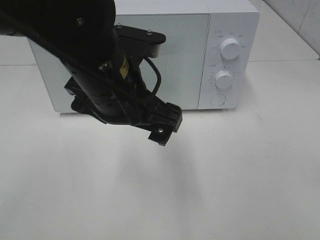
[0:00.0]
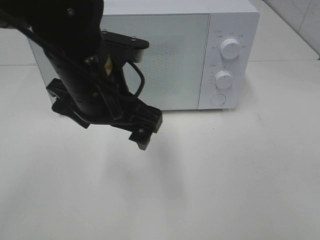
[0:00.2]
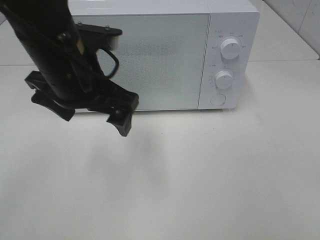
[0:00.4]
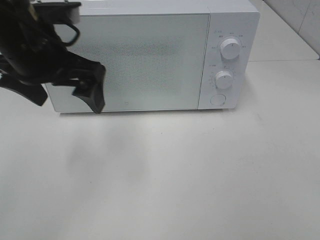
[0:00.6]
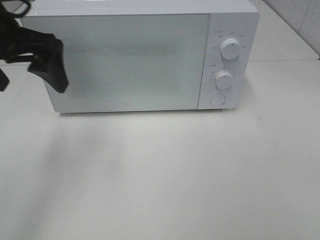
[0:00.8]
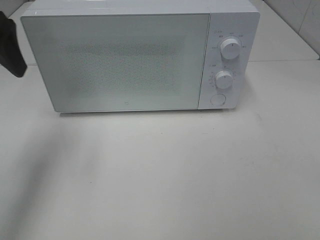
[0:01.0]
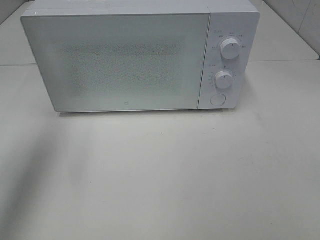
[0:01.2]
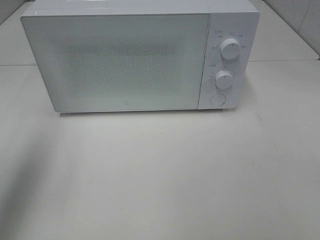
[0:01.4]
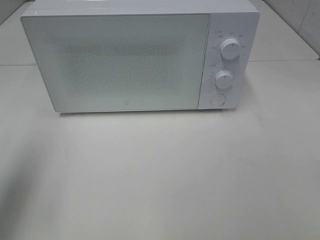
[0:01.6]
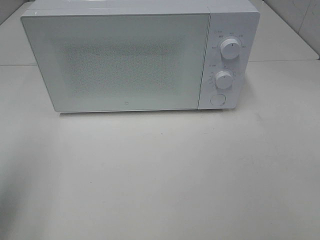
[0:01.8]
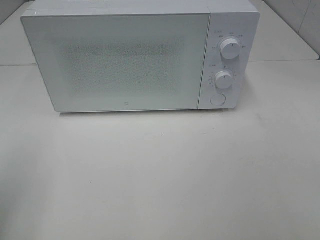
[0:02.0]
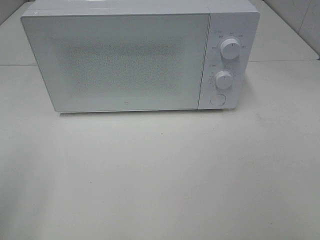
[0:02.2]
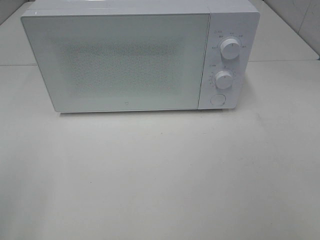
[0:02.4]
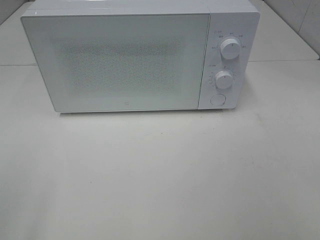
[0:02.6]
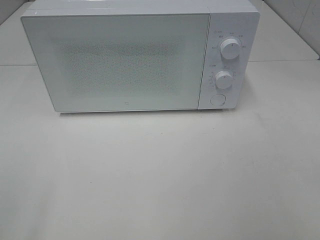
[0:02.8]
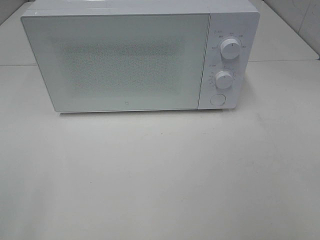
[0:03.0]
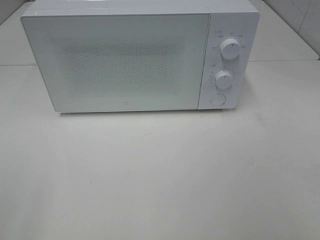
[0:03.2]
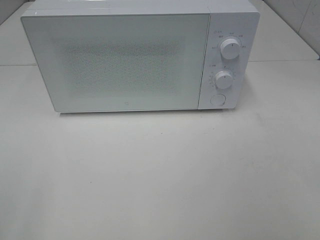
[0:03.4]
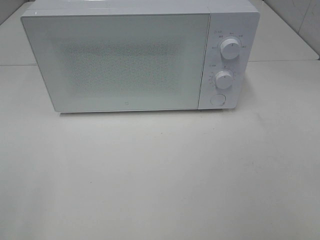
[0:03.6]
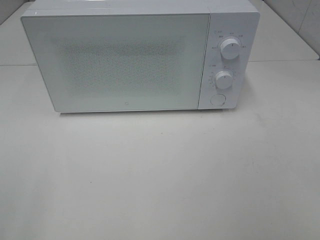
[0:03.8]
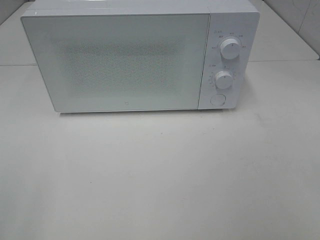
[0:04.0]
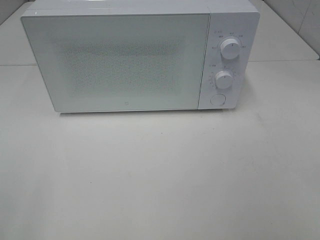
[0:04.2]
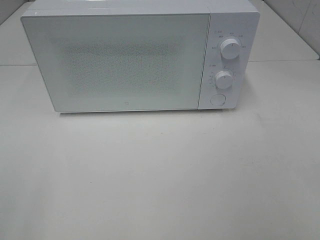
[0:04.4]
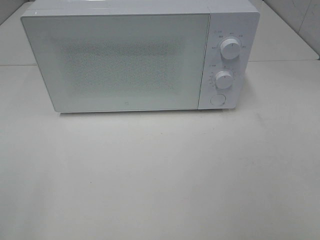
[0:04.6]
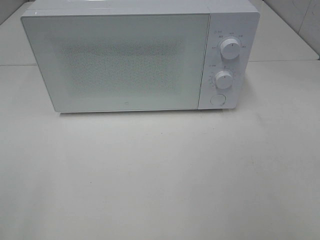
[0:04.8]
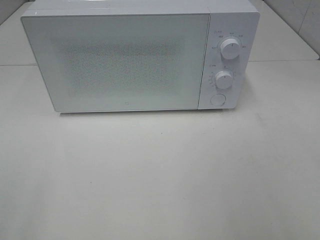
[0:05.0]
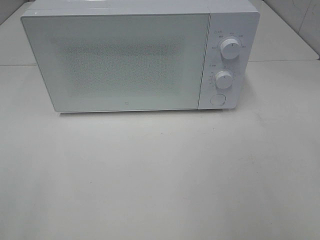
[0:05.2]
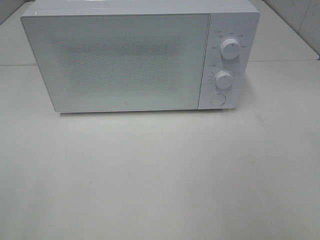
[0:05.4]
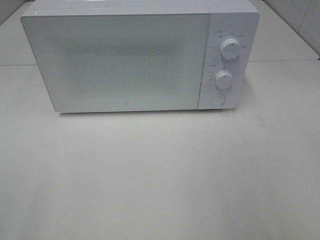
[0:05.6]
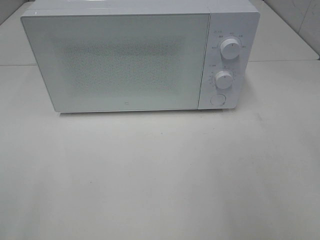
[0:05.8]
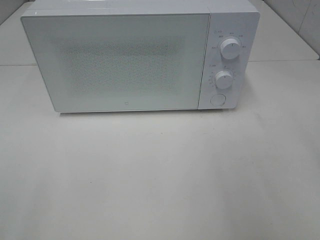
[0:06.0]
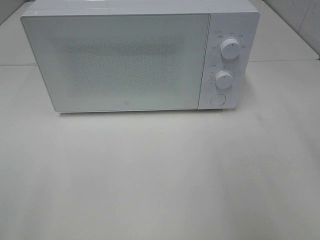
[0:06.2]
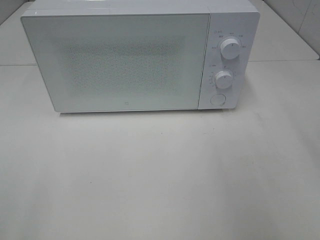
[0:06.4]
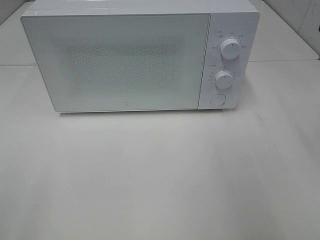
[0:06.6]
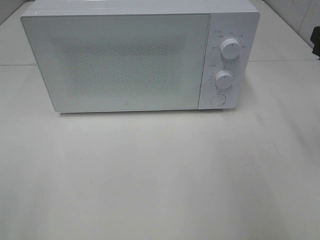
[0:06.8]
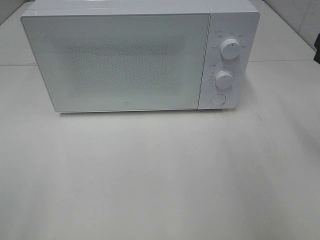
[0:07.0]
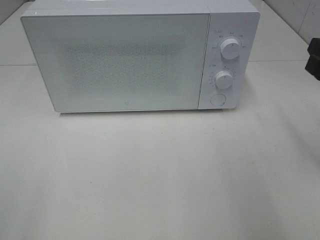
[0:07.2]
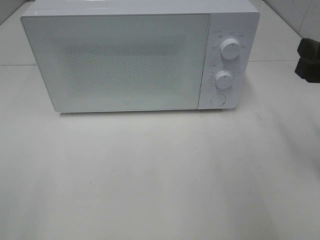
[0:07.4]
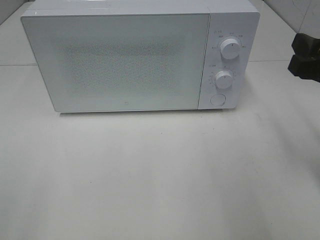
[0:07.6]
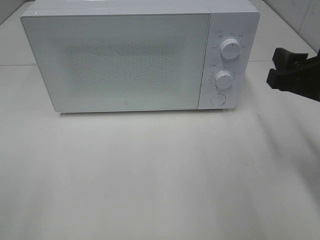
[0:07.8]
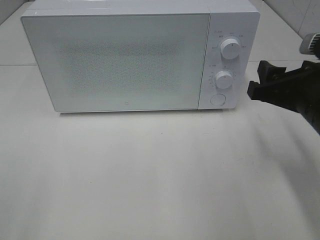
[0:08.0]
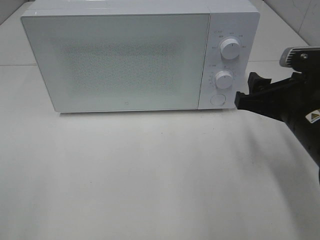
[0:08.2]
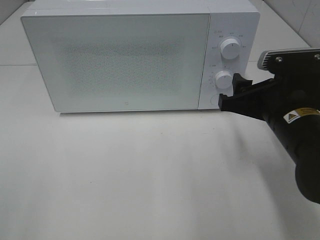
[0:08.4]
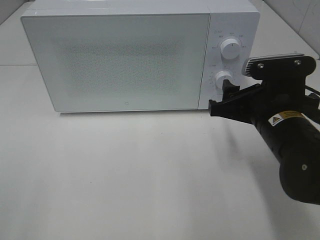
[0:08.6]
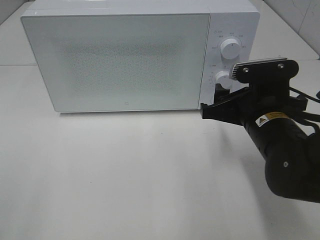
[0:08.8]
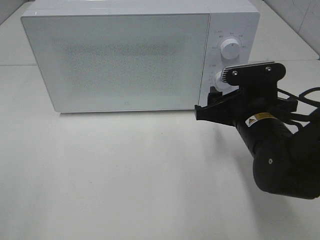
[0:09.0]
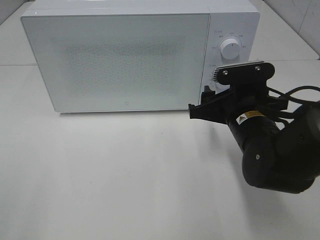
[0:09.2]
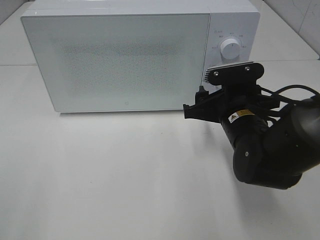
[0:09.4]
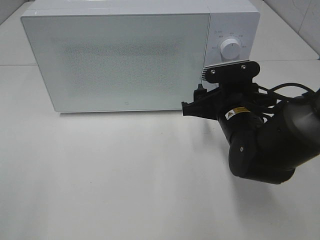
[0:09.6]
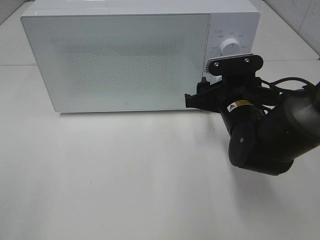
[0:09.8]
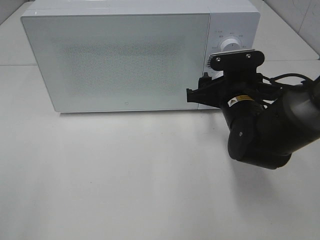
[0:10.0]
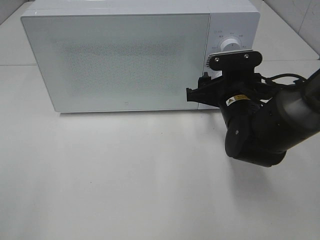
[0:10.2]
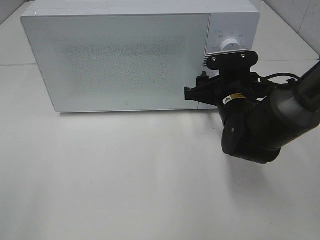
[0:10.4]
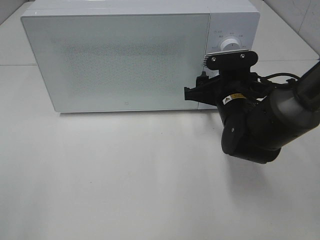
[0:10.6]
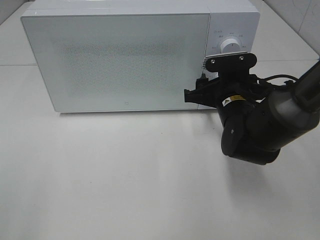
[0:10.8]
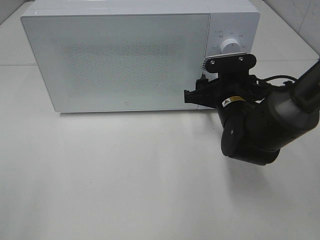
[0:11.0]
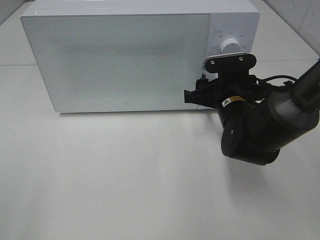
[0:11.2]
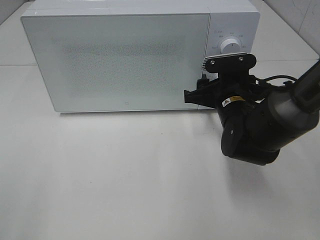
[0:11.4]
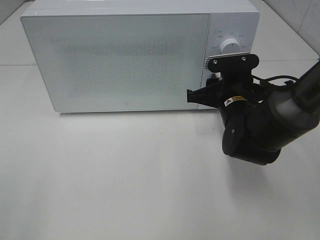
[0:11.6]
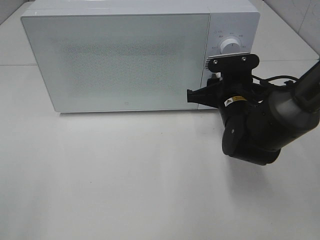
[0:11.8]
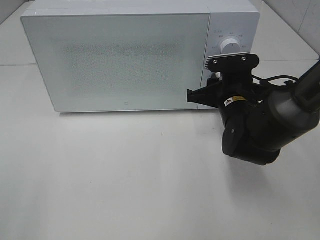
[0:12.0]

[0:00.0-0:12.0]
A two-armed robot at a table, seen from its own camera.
Task of the whole recording: Heat the burger.
0:00.0 to 0:01.6: The left gripper goes about 25 cm to the left.
0:01.6 to 0:03.0: The left gripper heads backward, covering roughly 20 cm.
0:03.0 to 0:04.4: The two grippers keep their place.
0:06.0 to 0:07.6: The right gripper is displaced downward and forward by approximately 10 cm.
0:07.6 to 0:09.0: The right gripper moves downward, to the left and forward, approximately 15 cm.
0:09.0 to 0:10.4: The right gripper travels forward by approximately 5 cm.
0:10.4 to 0:12.0: The two grippers keep their place.

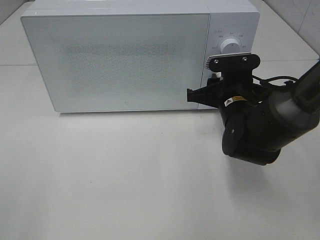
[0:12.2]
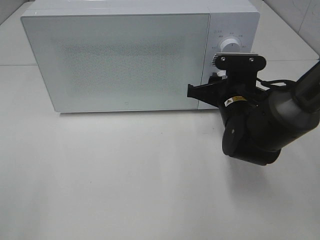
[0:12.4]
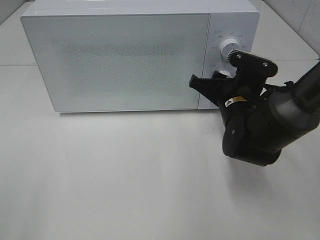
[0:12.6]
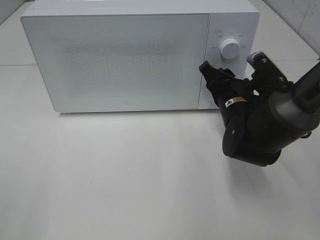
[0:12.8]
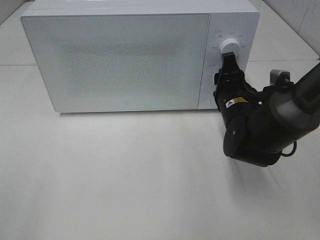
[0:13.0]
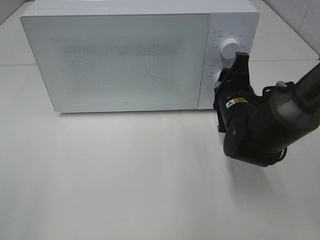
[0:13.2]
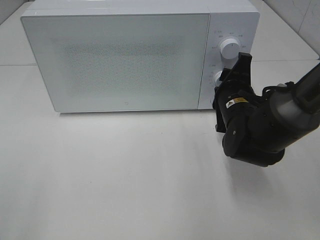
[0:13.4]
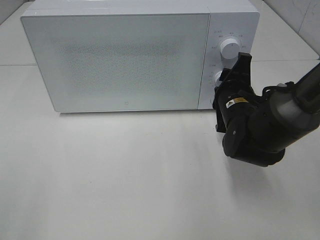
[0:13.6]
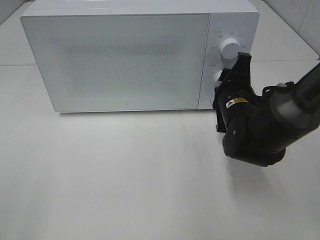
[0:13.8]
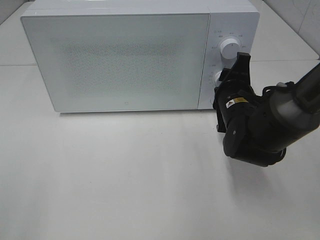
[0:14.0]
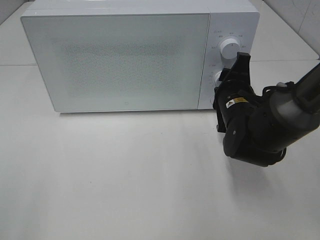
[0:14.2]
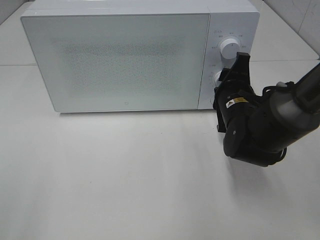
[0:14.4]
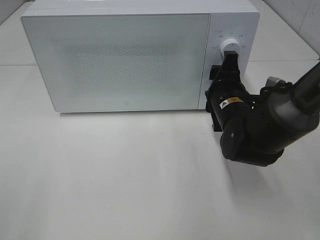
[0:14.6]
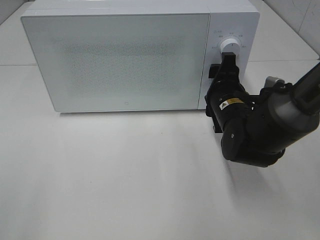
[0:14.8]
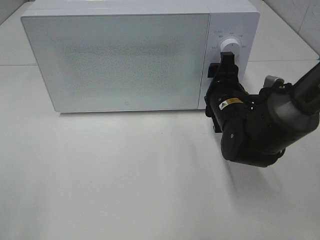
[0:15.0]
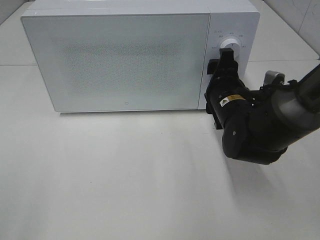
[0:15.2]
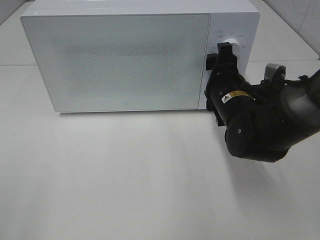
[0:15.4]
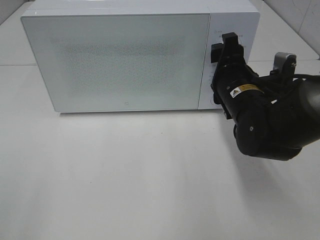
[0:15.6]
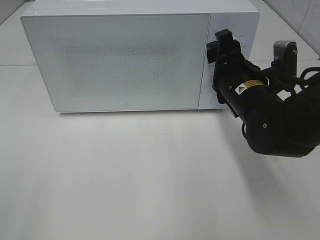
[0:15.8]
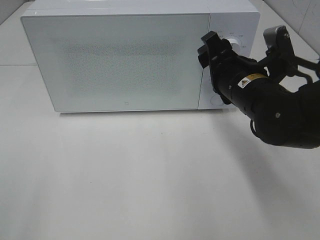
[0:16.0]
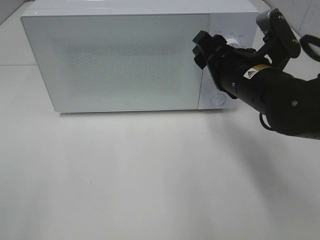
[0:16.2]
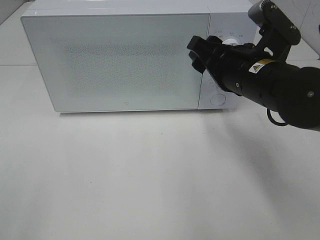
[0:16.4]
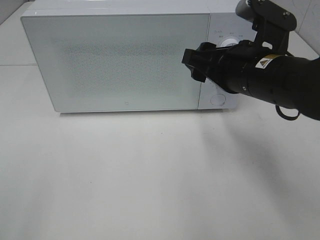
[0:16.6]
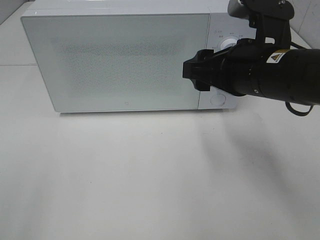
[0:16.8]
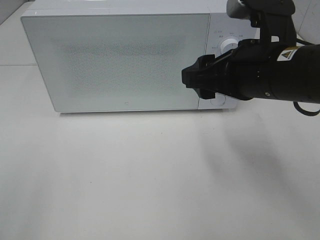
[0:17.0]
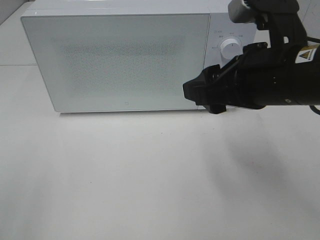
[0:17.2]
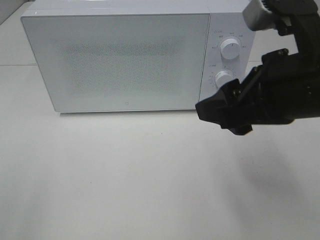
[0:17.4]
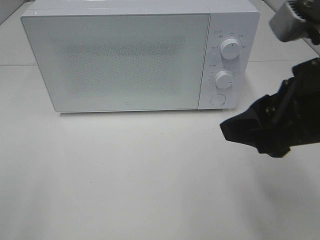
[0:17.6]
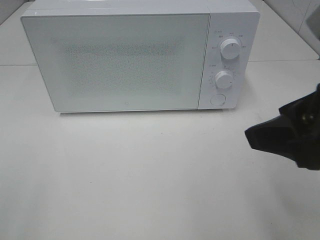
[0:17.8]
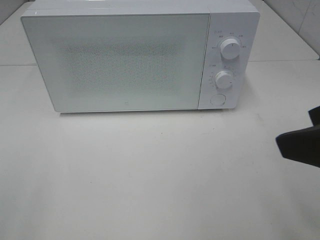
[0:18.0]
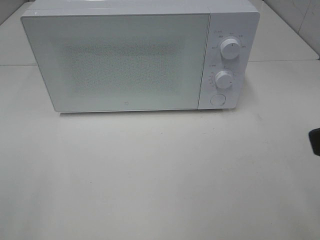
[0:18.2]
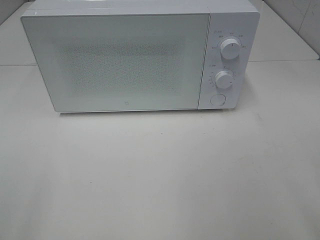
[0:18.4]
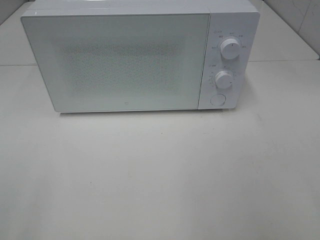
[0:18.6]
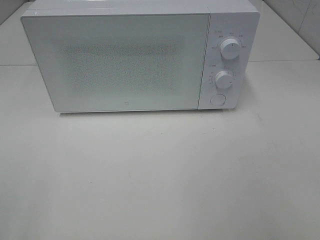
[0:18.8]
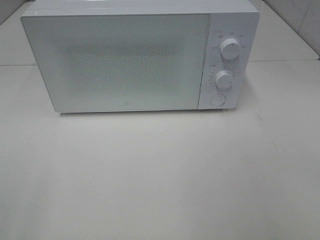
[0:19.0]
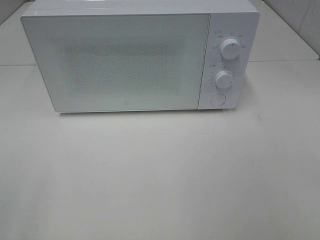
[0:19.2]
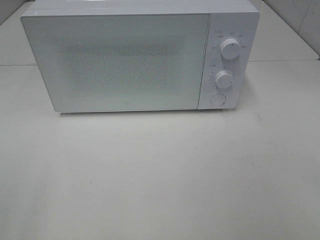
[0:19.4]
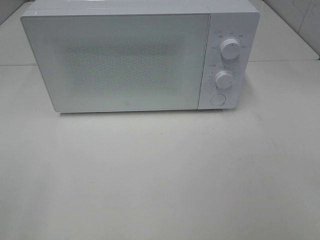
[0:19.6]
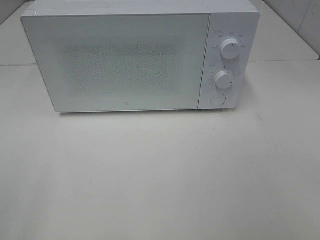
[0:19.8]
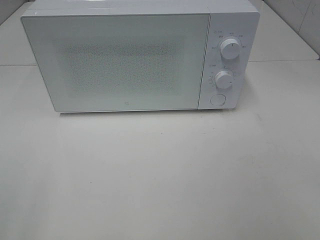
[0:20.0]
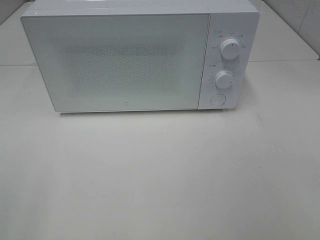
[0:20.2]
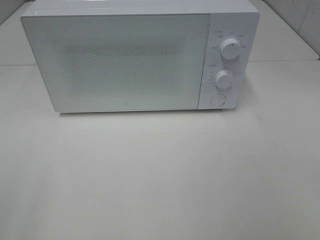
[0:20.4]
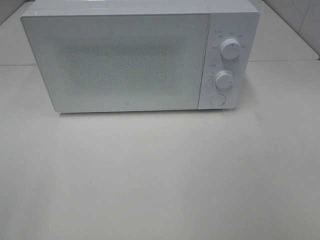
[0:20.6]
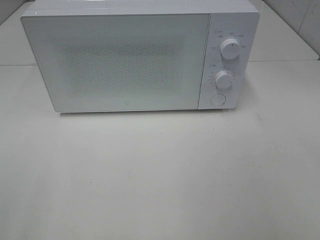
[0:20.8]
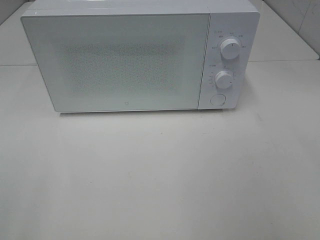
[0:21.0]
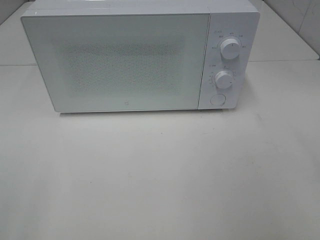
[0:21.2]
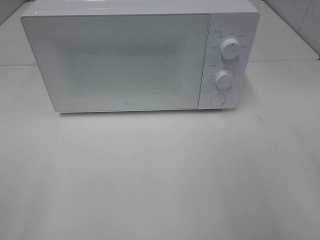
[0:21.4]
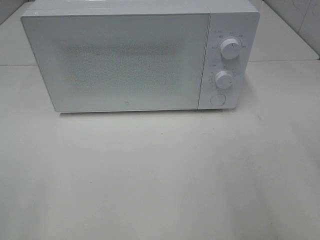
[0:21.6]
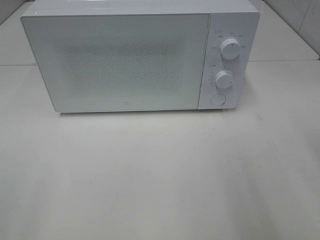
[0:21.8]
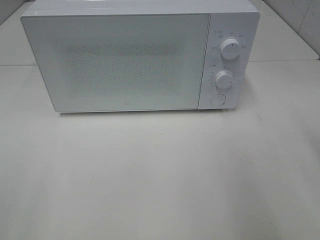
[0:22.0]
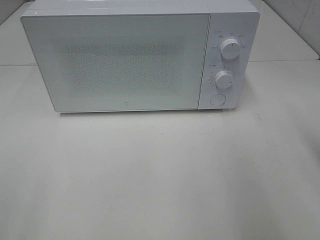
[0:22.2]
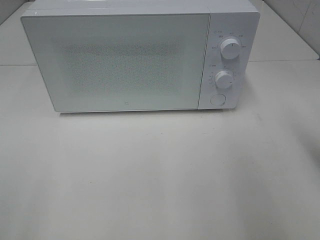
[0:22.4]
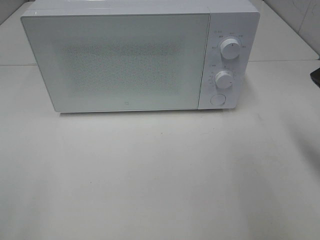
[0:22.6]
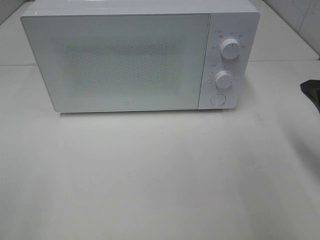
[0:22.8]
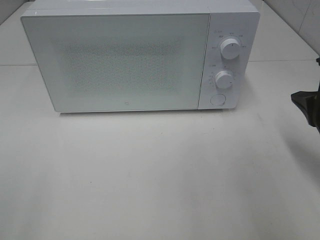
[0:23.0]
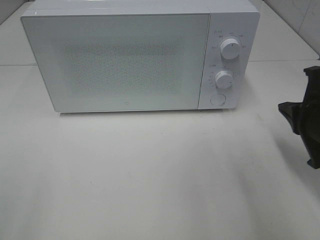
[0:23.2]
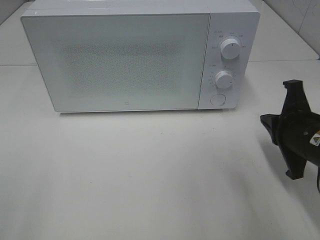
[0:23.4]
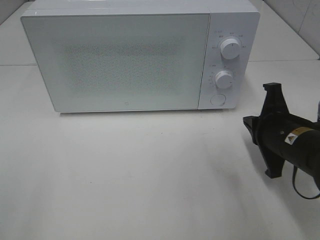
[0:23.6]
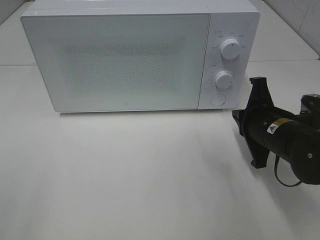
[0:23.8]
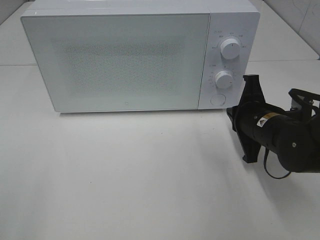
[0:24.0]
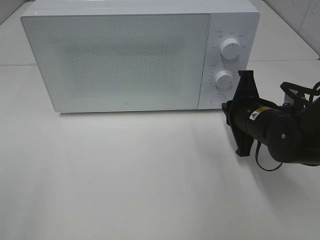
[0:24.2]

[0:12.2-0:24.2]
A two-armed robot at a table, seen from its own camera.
Task of the whole recording: Heat the burger.
Step, 0:12.2 to 0:14.6: Right hand: twist timer button.
0:13.8 to 0:15.2: There are only small adjustments of the grippers.
0:15.2 to 0:16.6: The right gripper moves upward and backward, some 10 cm.
0:16.6 to 0:18.2: The right gripper moves backward, upward and to the right, about 20 cm.
0:22.6 to 0:24.2: The right gripper is displaced downward, forward and to the left by some 15 cm.
